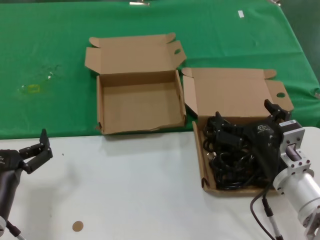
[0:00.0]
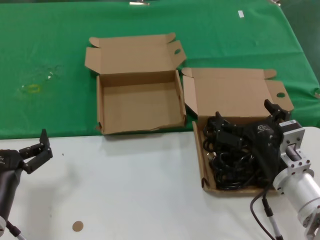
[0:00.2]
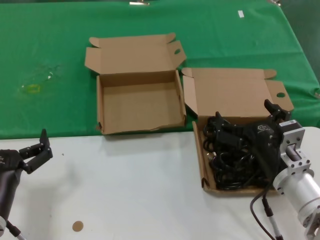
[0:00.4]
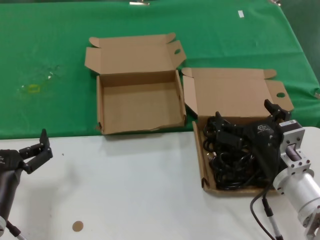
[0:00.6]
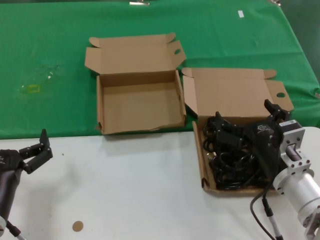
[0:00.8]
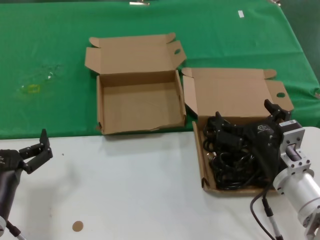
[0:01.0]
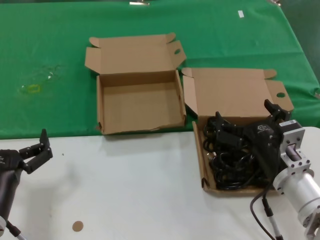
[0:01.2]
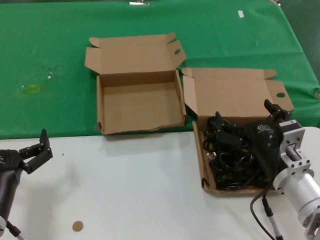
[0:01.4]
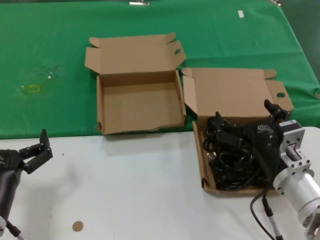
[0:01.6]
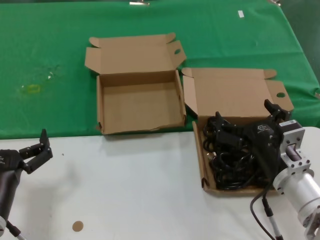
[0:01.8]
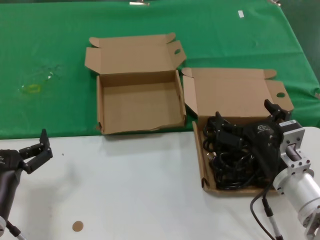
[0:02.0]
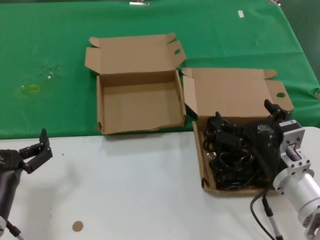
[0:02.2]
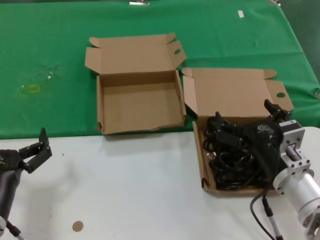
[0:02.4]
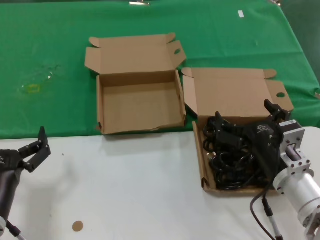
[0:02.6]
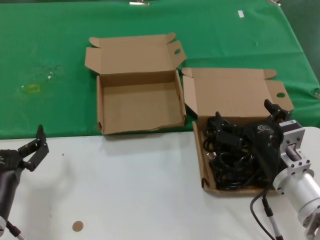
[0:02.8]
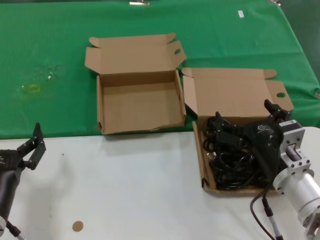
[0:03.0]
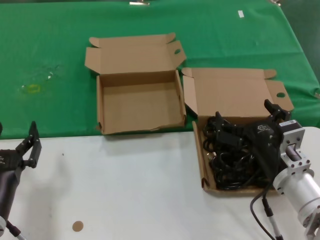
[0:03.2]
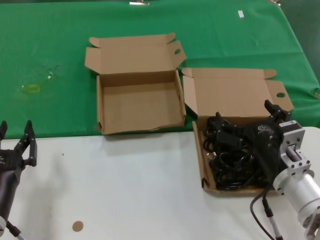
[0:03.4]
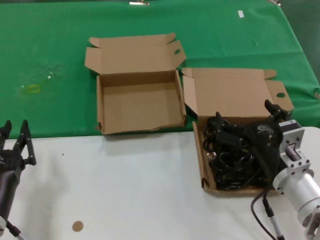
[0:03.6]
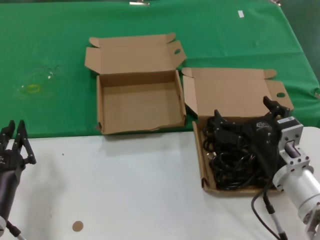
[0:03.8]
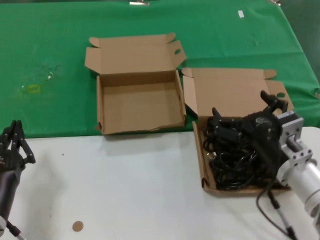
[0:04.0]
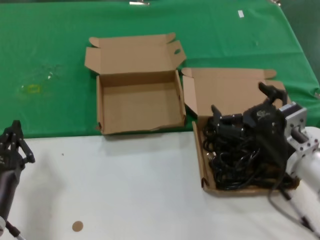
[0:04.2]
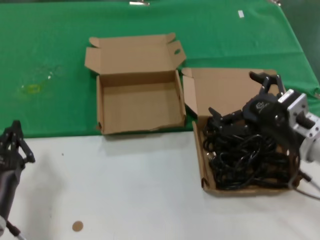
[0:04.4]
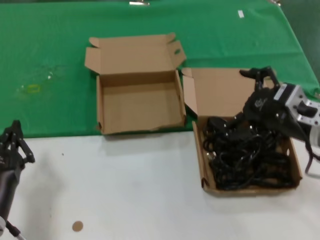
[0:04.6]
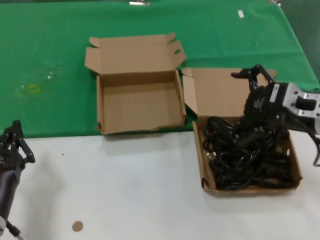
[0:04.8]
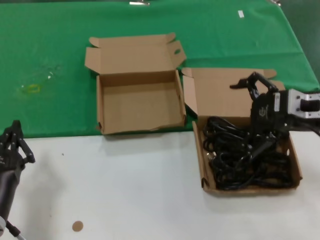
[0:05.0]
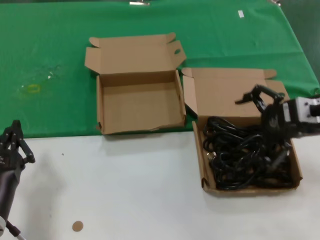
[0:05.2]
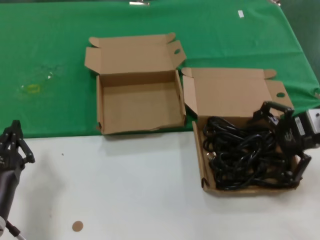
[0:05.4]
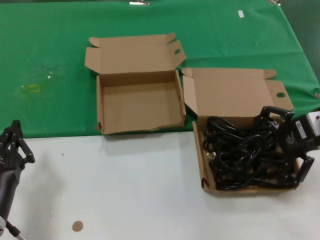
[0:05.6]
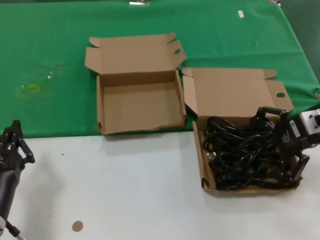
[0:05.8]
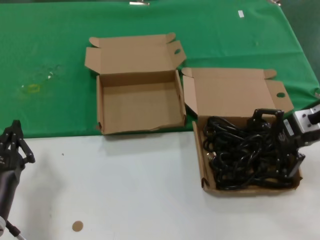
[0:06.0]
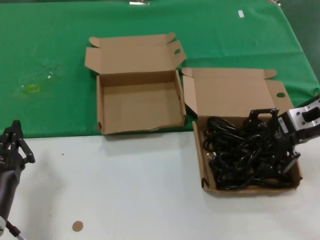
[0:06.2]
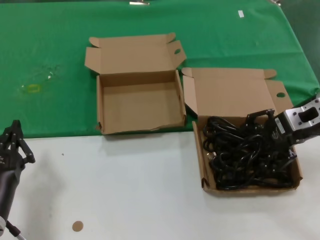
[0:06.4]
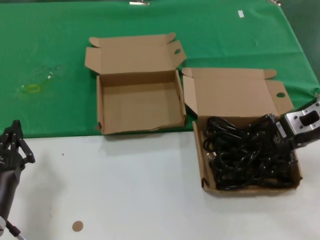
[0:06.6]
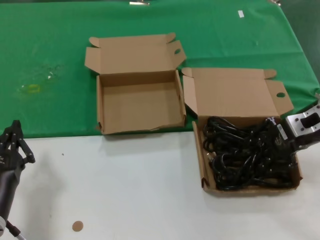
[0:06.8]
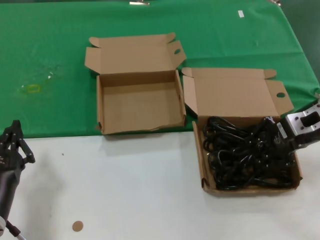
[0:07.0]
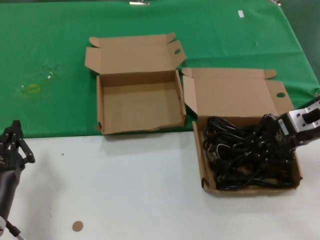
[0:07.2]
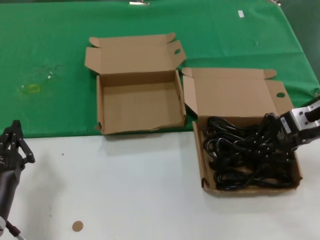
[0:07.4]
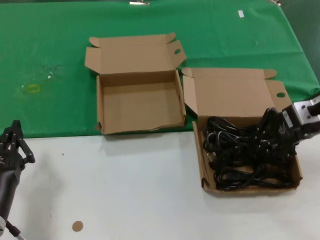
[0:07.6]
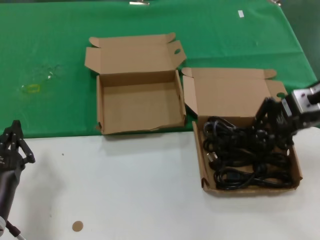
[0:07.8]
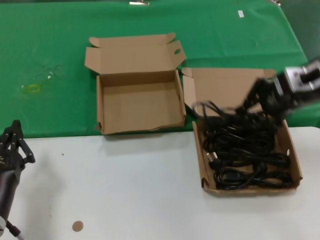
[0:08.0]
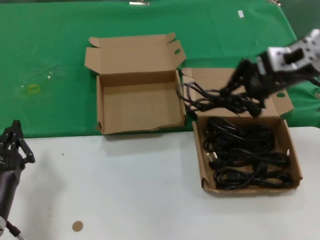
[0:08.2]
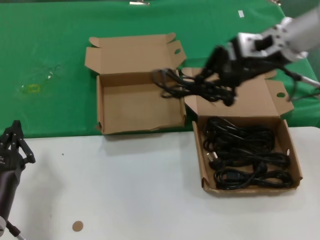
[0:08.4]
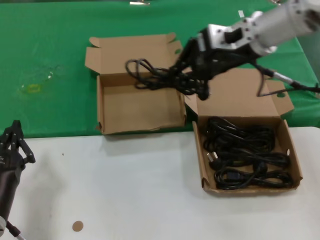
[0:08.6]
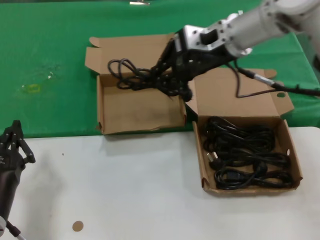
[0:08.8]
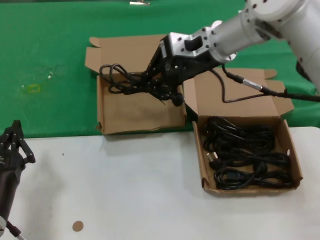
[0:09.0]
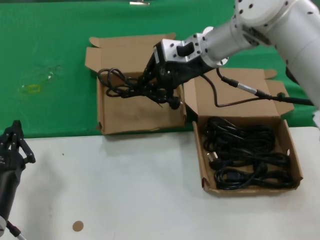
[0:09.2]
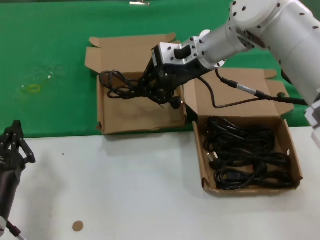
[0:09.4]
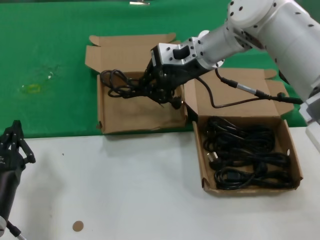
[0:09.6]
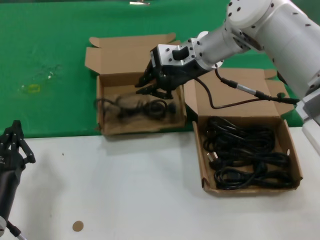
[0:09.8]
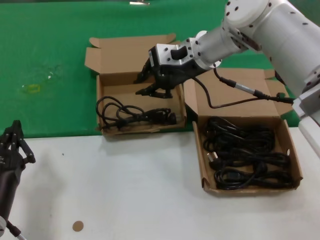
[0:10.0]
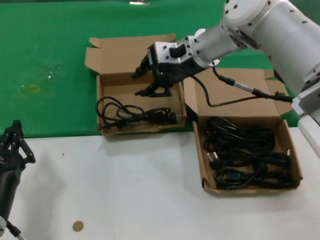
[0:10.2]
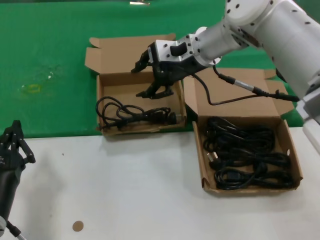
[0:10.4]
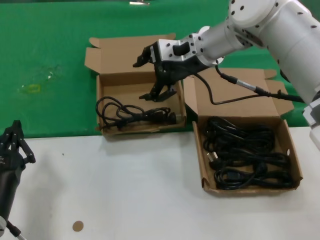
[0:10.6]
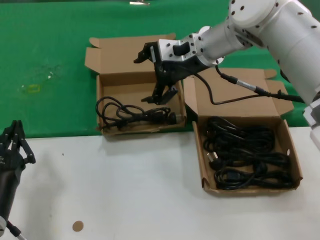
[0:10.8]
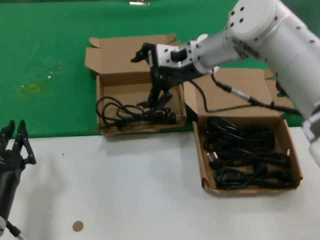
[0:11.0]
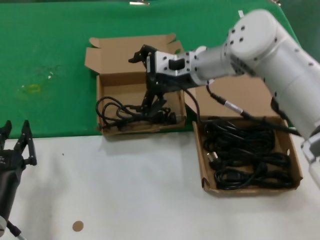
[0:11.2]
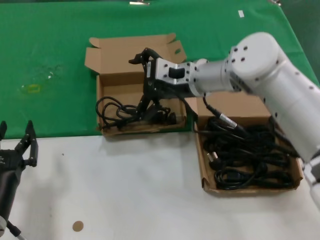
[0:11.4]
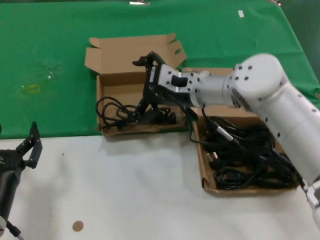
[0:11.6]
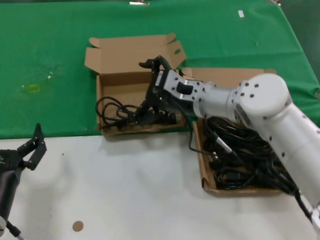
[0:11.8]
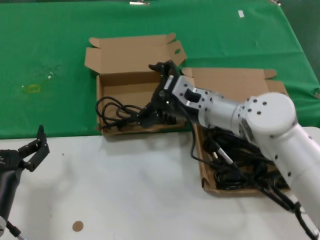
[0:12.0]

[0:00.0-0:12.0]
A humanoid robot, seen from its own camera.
Task of the whole recording: take the parts from the box containing them and put them into an empty box.
Step, 0.0 to 7.2 s: Grasp the data cable.
Step, 7.4 to 10.2 s: Place the data cable in the another box.
0.0 to 3.0 s: Both hands stay about where they are.
3.0 to 4.4 s: The right hand travels upward by about 5 cm.
4.4 to 6.0 s: The right hand travels forward, upward and to the right by about 15 cm.
6.0 to 7.6 s: The hands make only small movements.
7.6 to 9.0 s: The right hand heads to the left and forward, covering about 20 cm.
9.0 to 10.4 s: The hands move only a little.
10.4 to 12.0 s: The right hand travels downward and backward by some 15 cm.

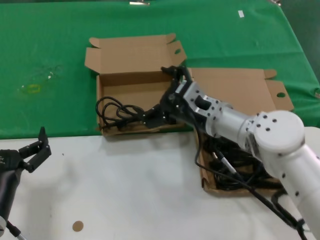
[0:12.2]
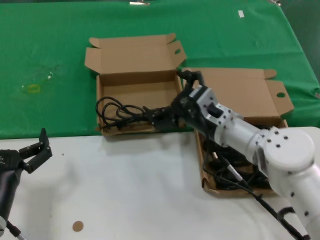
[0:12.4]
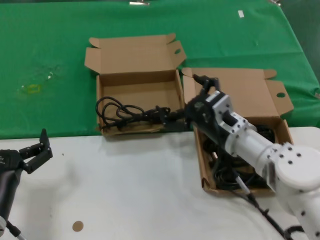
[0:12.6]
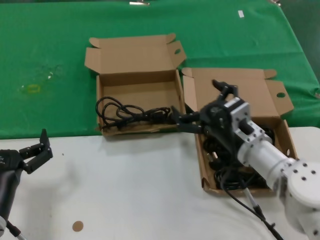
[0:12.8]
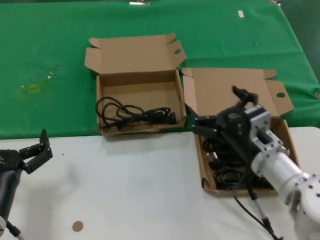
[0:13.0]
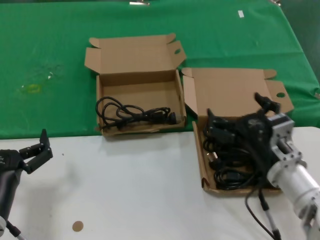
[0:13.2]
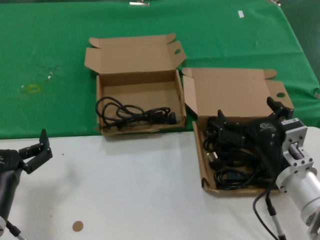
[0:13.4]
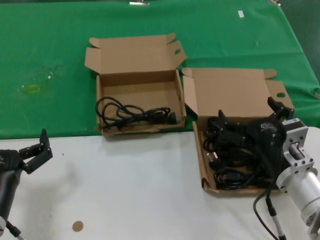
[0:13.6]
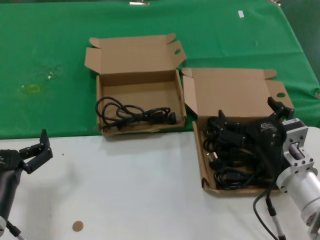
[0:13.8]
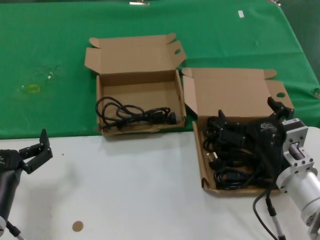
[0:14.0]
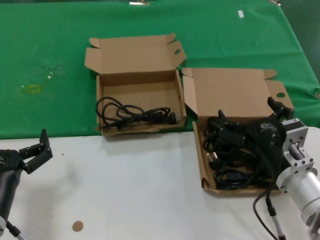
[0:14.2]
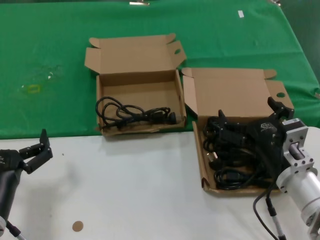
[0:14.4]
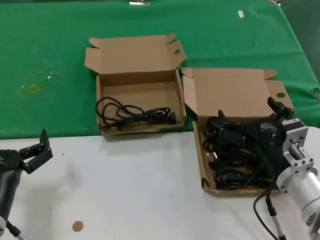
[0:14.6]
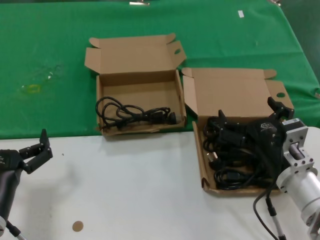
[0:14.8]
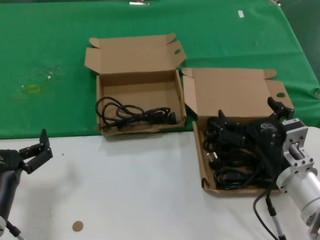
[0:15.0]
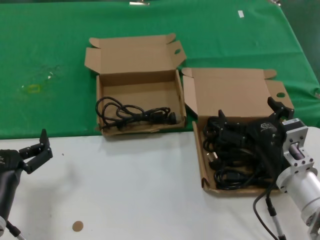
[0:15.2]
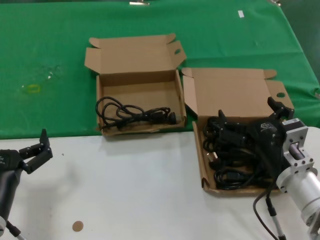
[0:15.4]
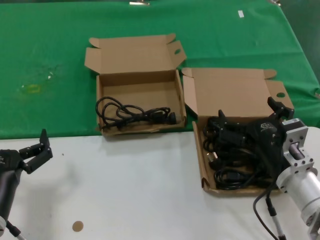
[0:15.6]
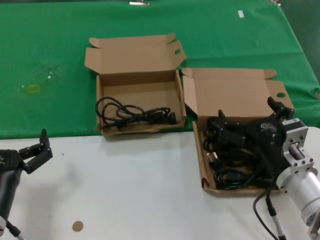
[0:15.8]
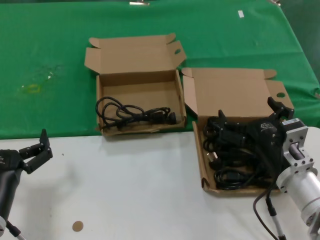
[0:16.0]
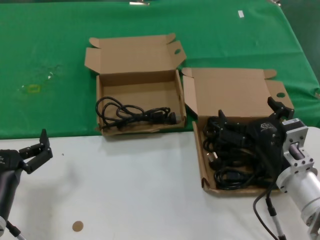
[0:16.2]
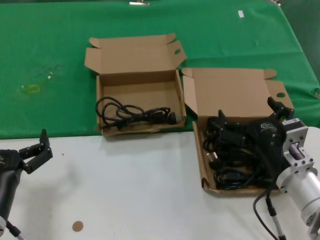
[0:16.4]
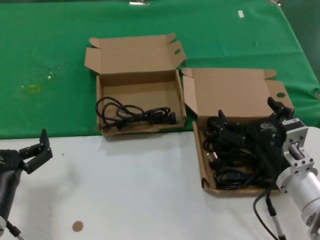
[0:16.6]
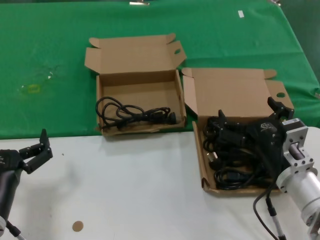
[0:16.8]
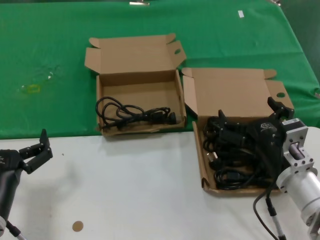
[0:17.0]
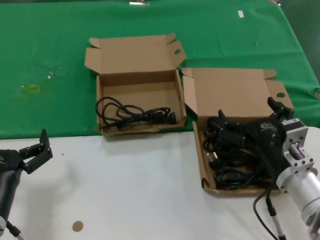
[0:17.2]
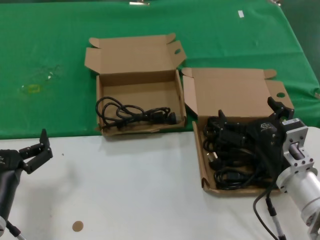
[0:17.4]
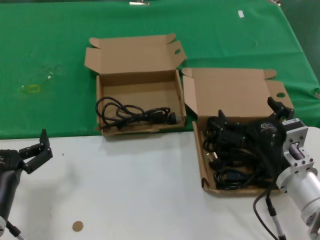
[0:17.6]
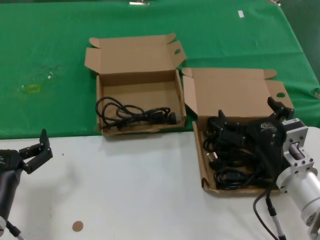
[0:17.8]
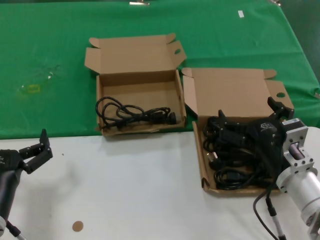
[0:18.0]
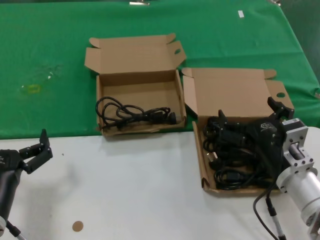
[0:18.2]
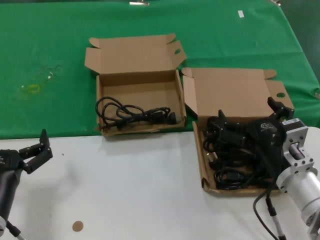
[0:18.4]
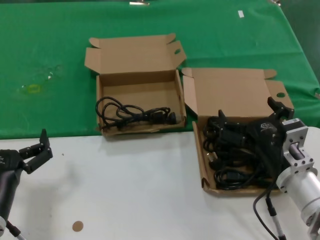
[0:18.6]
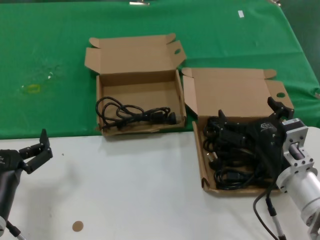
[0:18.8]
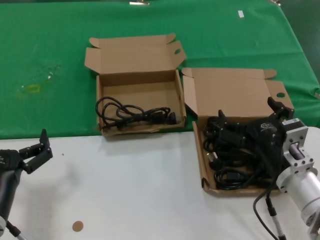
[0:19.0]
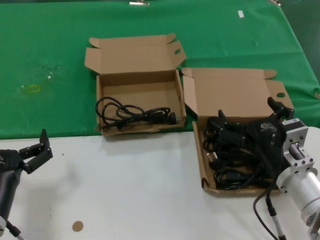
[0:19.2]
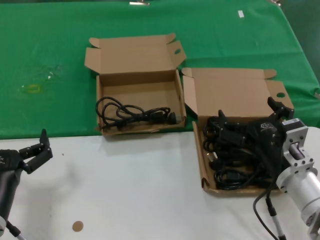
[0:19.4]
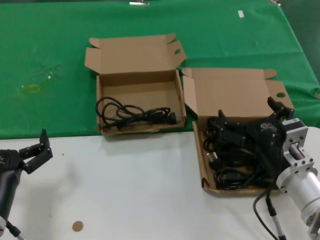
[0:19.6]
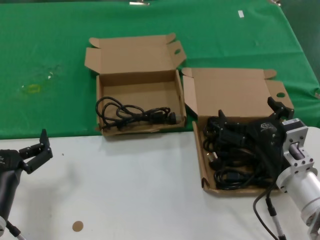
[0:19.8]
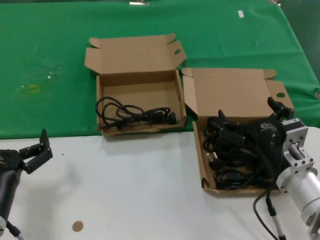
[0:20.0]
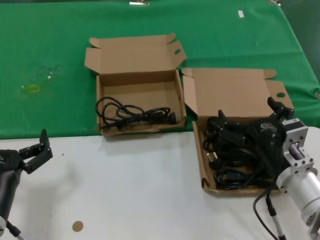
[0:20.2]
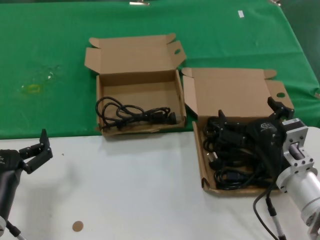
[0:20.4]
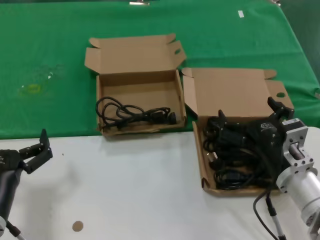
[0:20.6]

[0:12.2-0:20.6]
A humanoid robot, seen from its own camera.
Task of the whole recording: take the parts from the box containing them and put them into an empty box.
12.2 to 13.6 s: The right hand moves backward, to the right and downward, approximately 20 cm.
13.6 to 20.6 s: Both hands stay put.

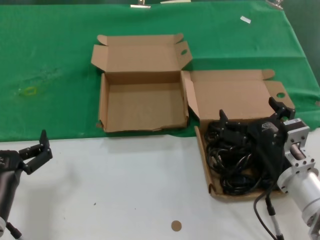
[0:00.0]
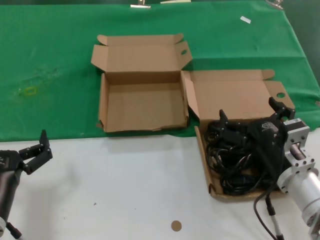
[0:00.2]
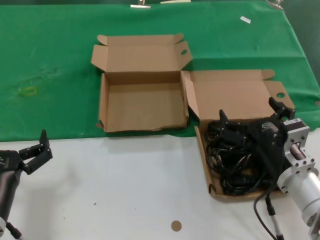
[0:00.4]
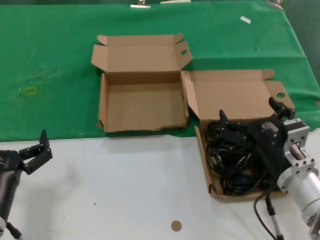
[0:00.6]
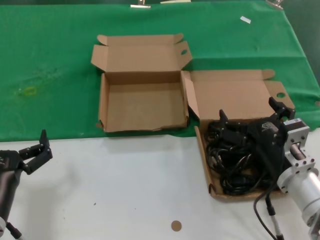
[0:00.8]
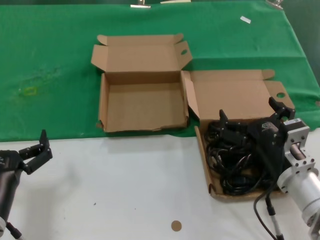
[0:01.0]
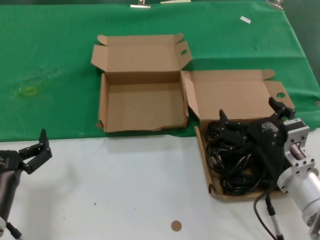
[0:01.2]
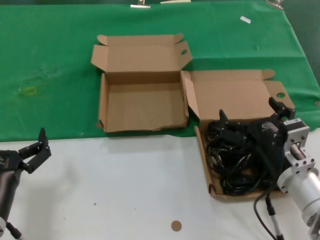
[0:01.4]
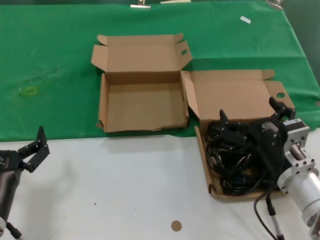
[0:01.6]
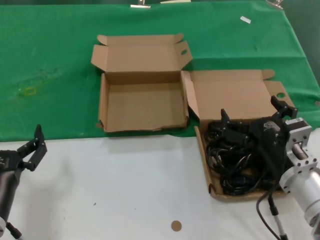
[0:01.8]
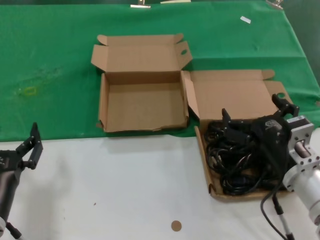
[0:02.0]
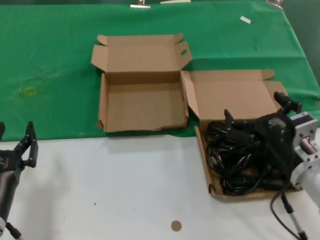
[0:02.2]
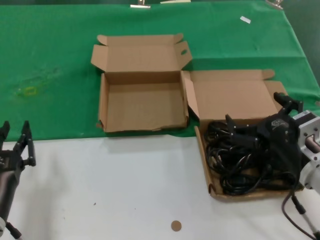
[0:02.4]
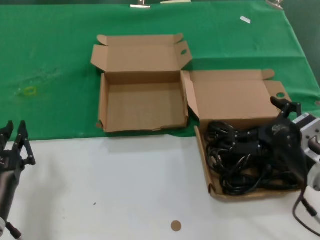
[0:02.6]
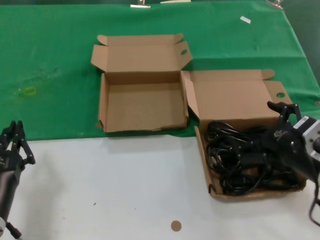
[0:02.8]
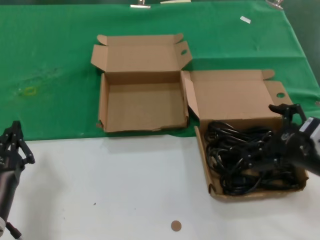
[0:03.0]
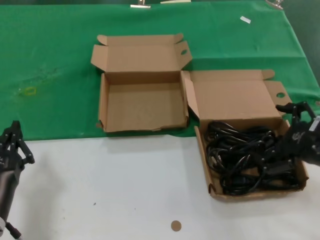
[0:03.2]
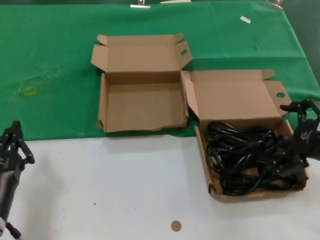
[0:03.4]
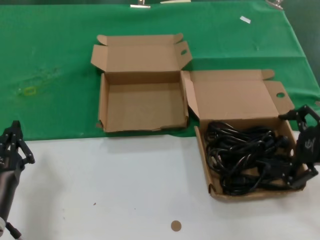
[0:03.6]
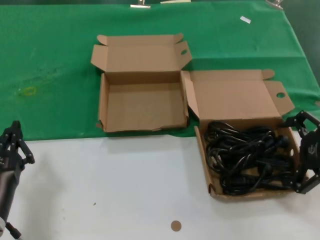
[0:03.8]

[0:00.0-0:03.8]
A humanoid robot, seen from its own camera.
Task of the whole recording: take the parts from the box containing them and put them into an empty box.
0.0 to 1.2 s: Neither hand changes place.
1.2 to 2.6 s: The right hand shifts by roughly 5 cm.
2.6 to 3.8 s: The right hand moves to the right and upward, approximately 15 cm.
